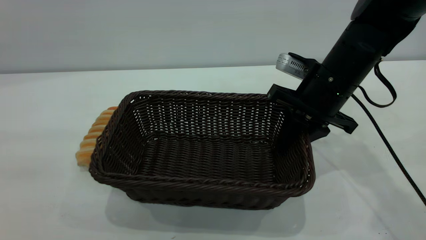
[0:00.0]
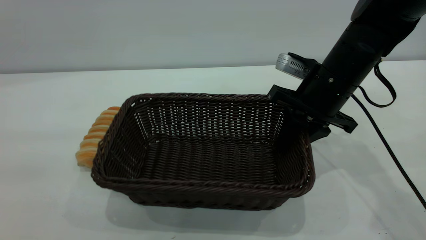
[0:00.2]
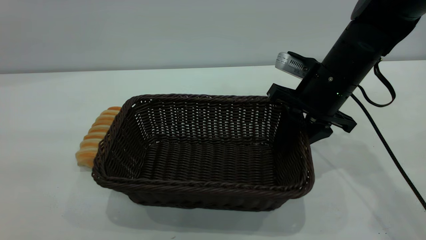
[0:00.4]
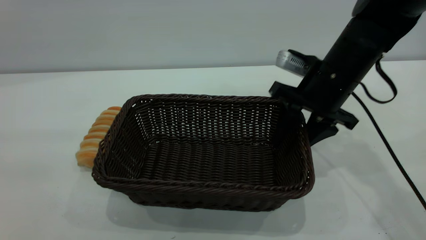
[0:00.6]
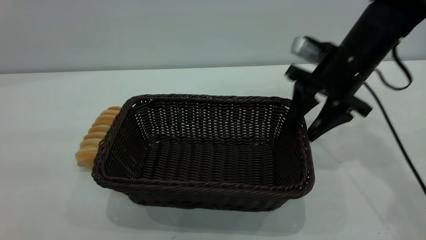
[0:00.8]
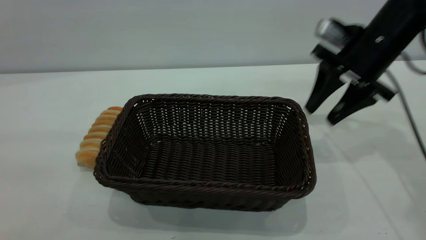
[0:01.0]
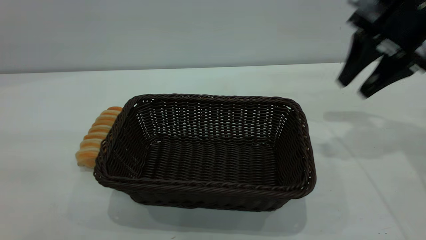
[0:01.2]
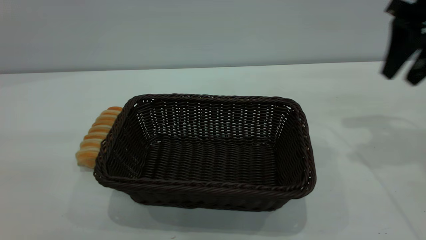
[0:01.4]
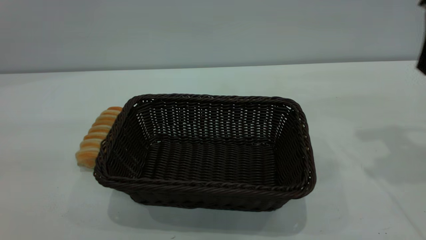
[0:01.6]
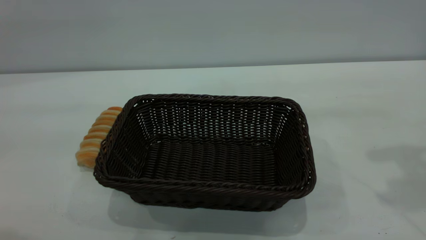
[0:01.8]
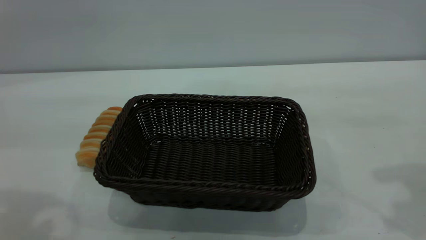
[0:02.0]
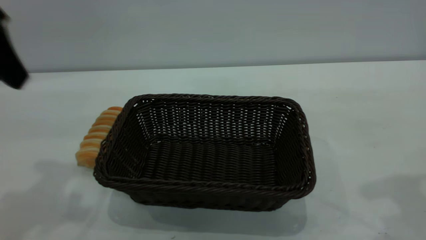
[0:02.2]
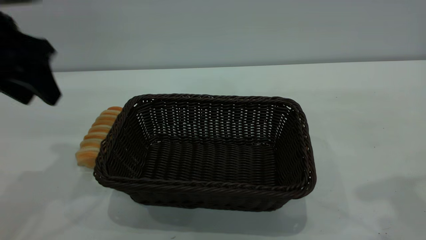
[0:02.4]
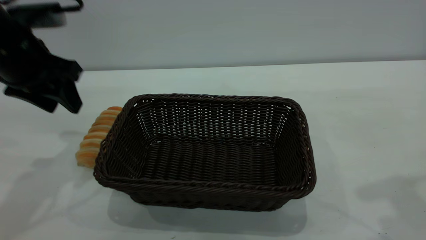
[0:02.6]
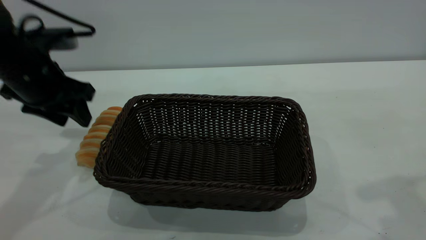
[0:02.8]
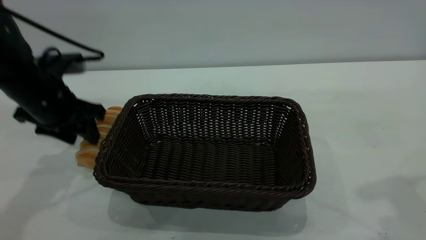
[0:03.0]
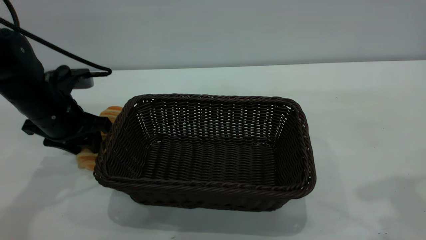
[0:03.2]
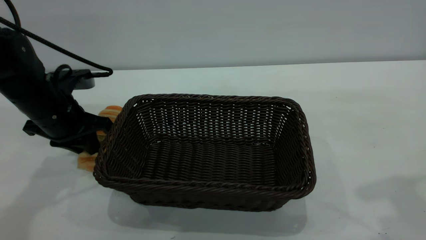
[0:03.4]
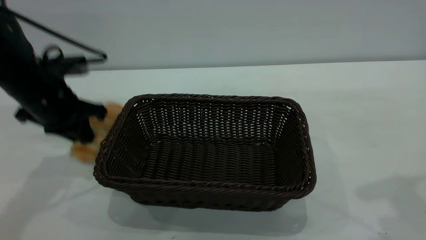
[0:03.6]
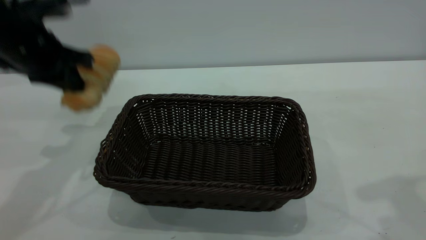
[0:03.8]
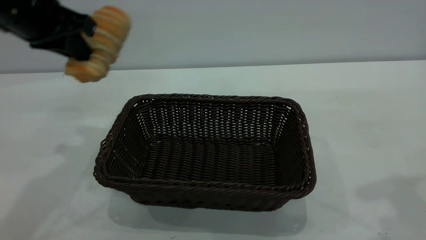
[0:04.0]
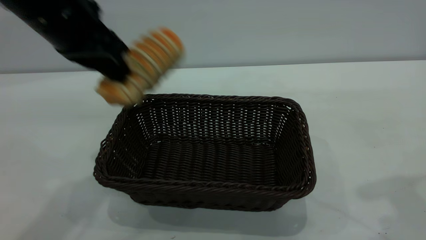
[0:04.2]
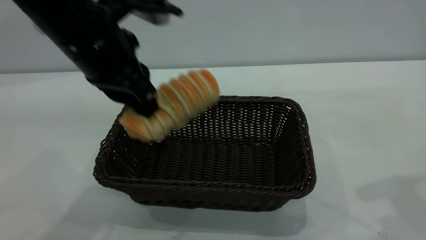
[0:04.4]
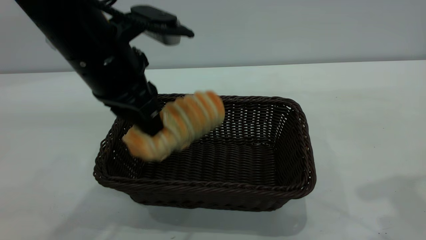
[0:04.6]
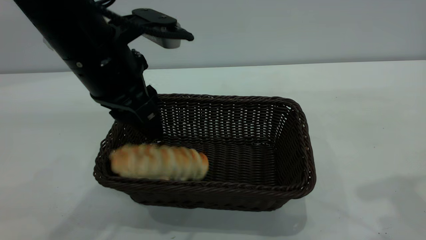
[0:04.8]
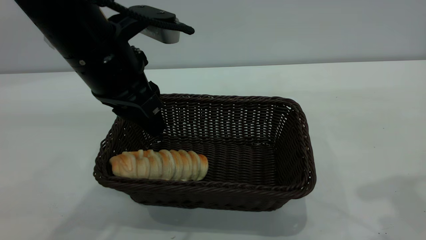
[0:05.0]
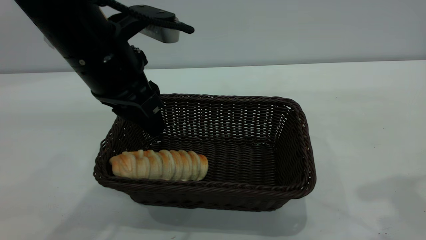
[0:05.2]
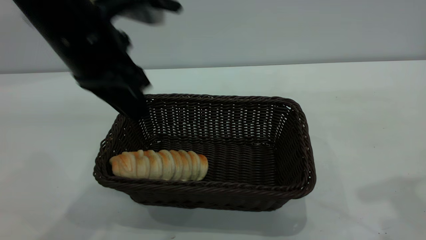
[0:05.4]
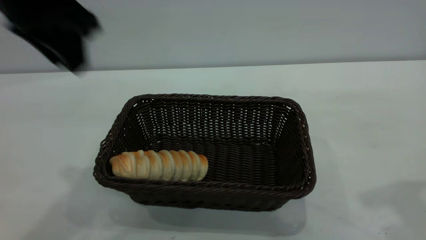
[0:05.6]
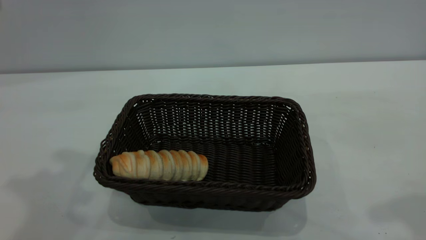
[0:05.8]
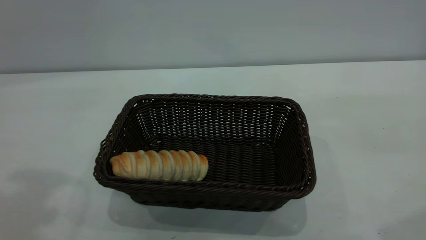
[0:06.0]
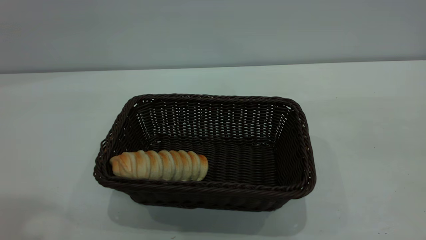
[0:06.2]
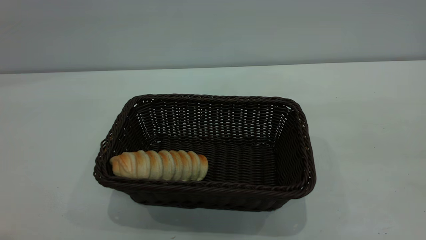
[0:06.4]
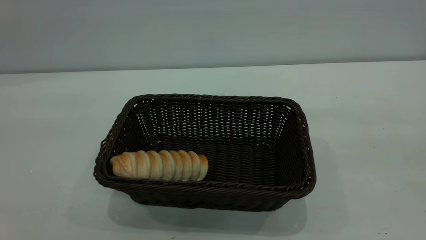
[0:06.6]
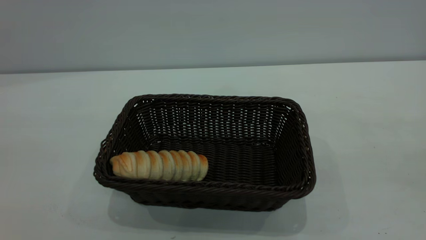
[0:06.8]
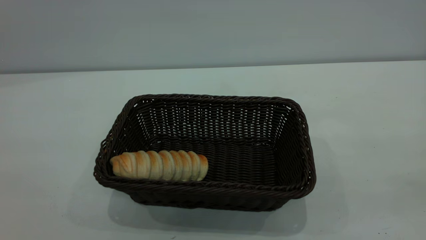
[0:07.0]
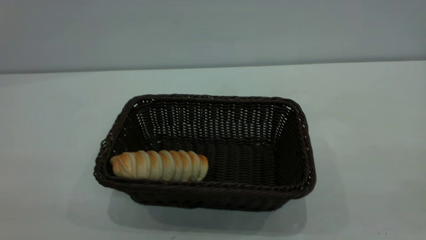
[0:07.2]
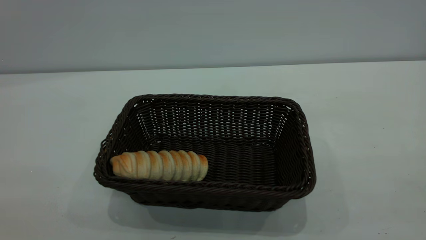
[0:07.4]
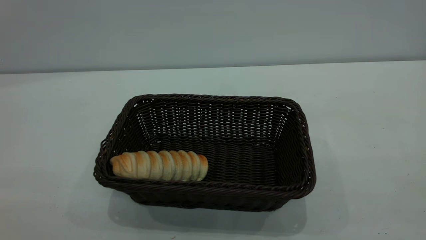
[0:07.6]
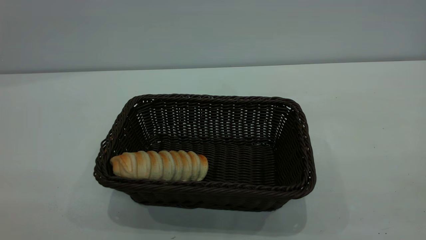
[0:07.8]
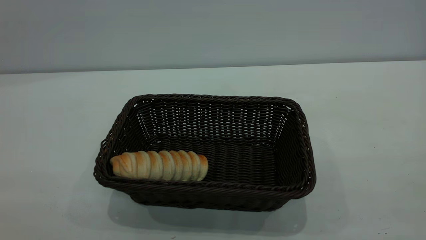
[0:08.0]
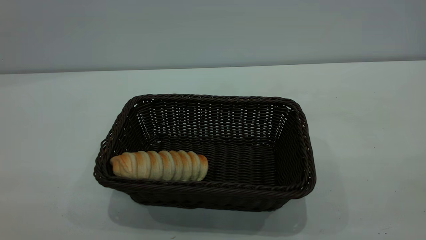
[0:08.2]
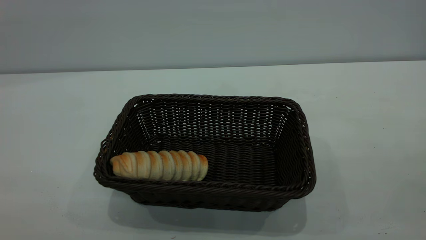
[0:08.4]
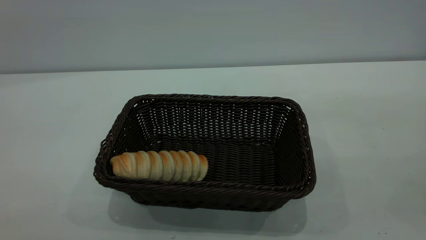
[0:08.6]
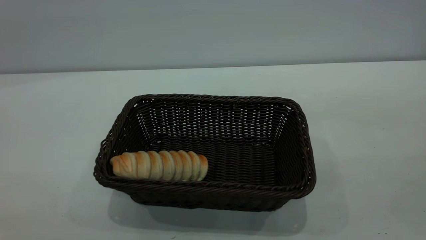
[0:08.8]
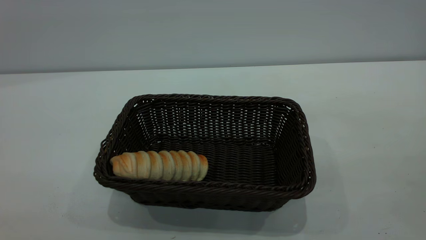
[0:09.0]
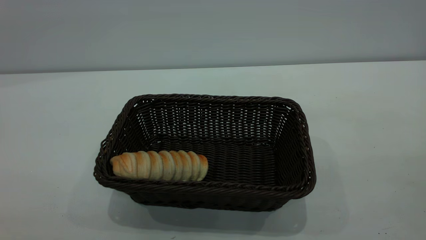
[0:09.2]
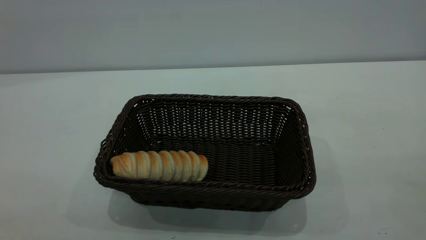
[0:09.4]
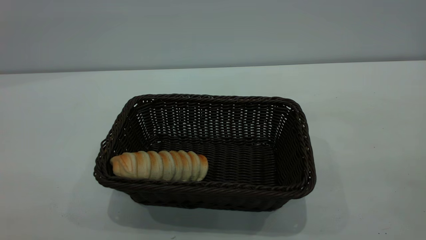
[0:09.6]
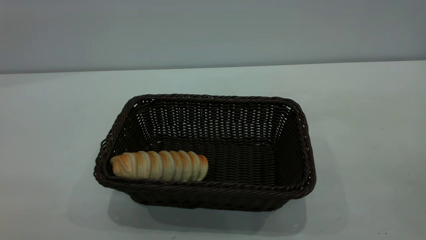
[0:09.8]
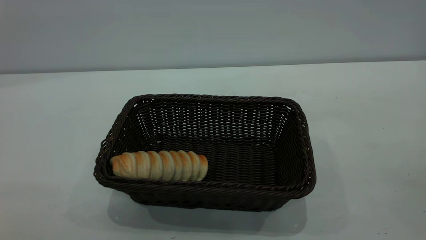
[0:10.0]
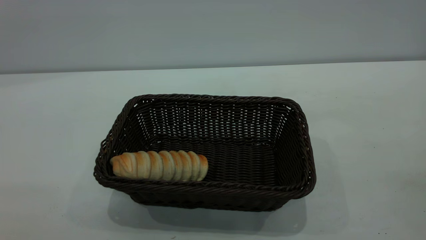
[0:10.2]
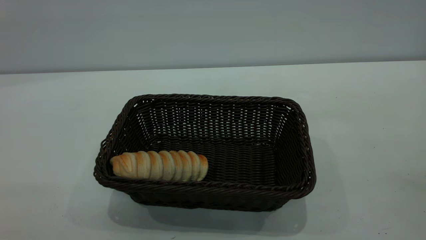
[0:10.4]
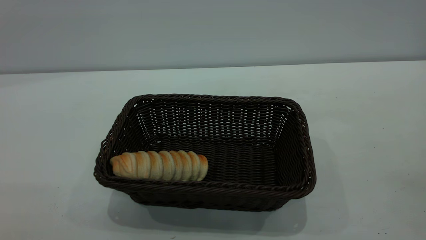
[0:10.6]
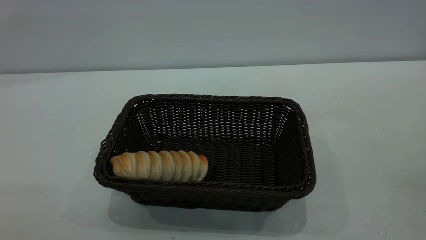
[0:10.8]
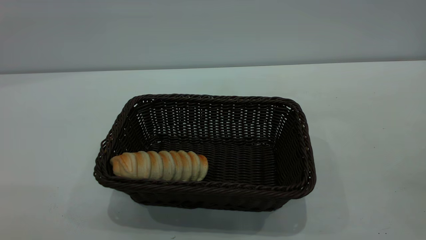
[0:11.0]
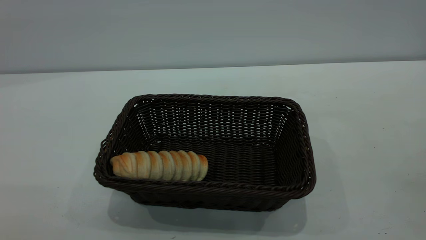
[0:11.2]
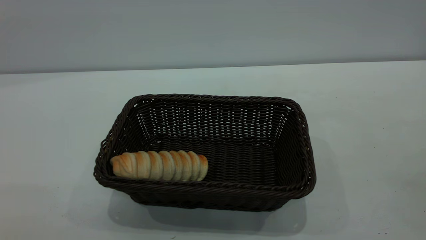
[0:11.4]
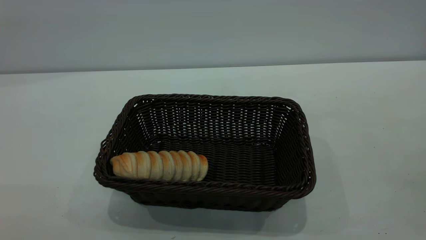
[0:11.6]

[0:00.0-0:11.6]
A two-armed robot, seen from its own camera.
Task of the whole recording: One hand grasps the black basket and places it in the middle of the table, while the other hand picks up the long bread and puts it into the black basket.
Step, 0:03.8 to 0:05.4: place the bread into the basket.
0:00.0 to 0:01.4: The right gripper shifts roughly 20 cm to the right and upward, and opens its fingers.
0:01.4 to 0:02.8: The left gripper travels forward and downward by about 35 cm. Meanwhile the right gripper moves backward and upward, roughly 15 cm.
0:02.8 to 0:04.4: The left gripper is displaced to the right, upward and backward by about 15 cm, and closes up.
0:04.4 to 0:05.8: The right gripper changes place by roughly 5 cm. The left gripper is displaced upward and to the left by some 20 cm, and opens its fingers.
0:10.2 to 0:11.6: Neither gripper changes place.

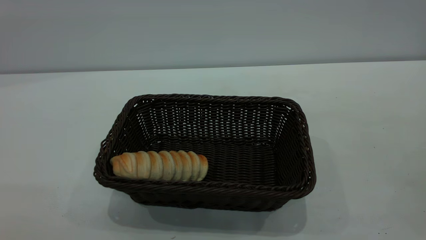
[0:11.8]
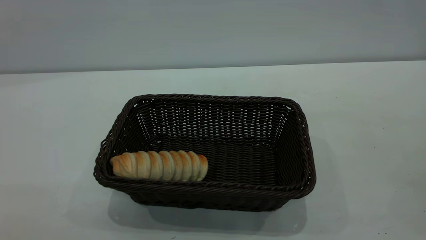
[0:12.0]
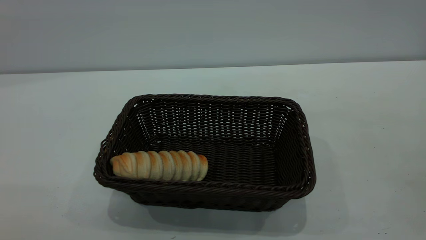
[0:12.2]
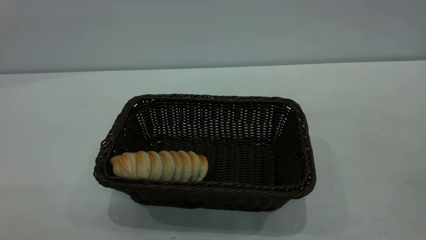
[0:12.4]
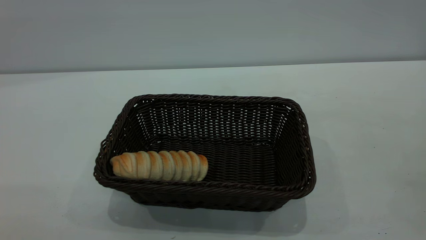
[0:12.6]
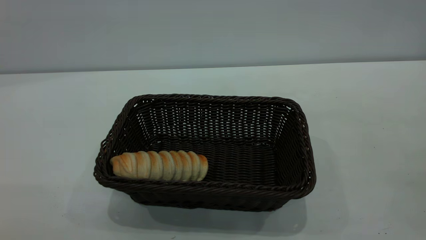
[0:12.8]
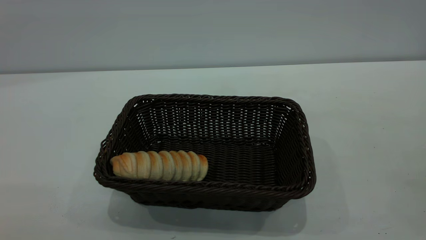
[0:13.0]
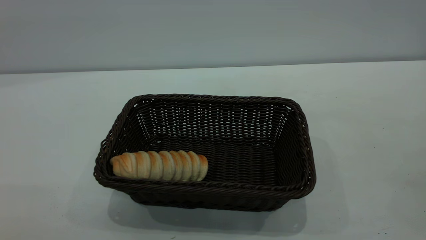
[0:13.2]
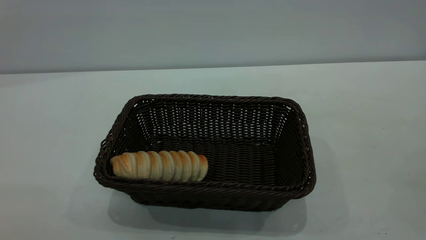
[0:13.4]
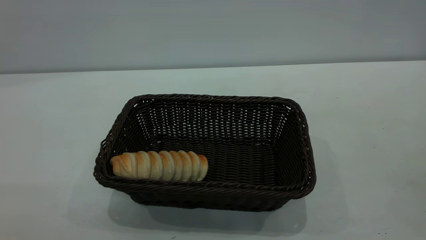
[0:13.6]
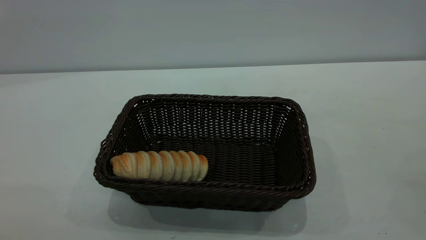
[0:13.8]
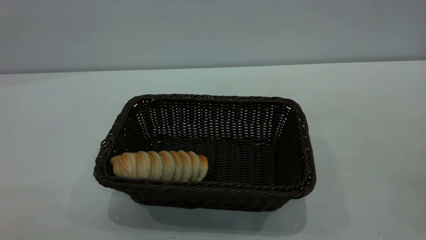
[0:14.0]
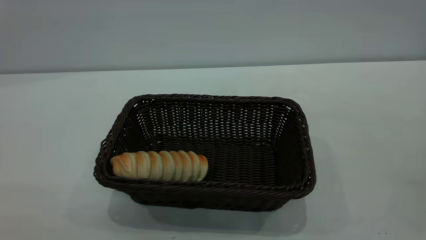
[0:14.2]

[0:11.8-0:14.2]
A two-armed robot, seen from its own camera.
Task of the whole recording: One hand grasps the black basket and places it in the middle of the table, while the other hand picks up the long bread and puts it into the black basket.
0:11.8 to 0:14.2: The two grippers keep their place.

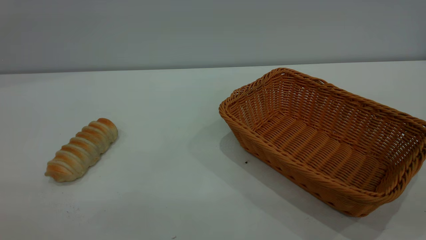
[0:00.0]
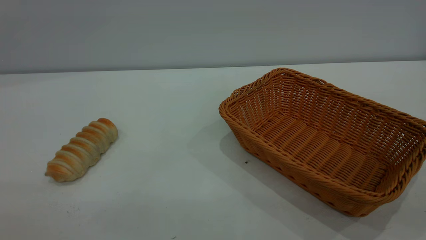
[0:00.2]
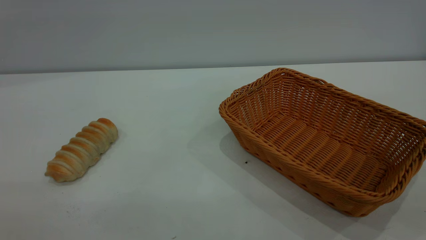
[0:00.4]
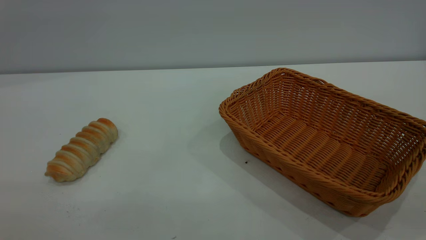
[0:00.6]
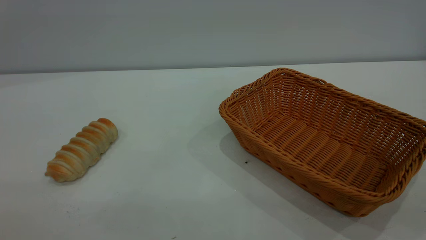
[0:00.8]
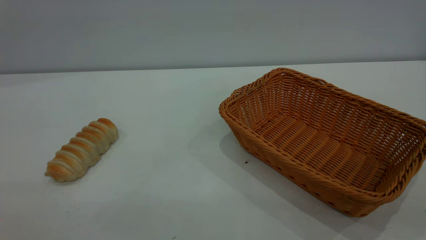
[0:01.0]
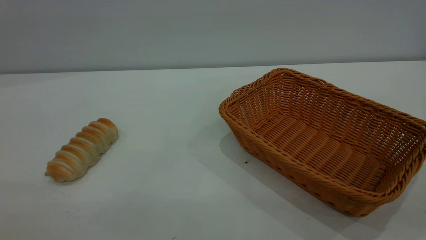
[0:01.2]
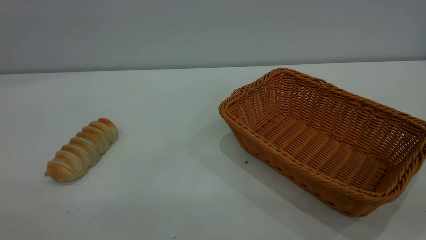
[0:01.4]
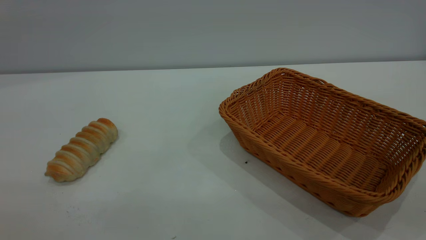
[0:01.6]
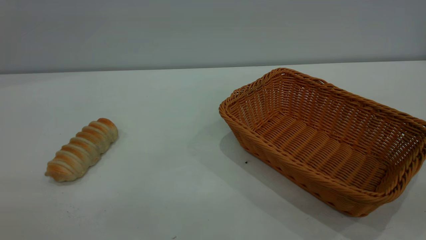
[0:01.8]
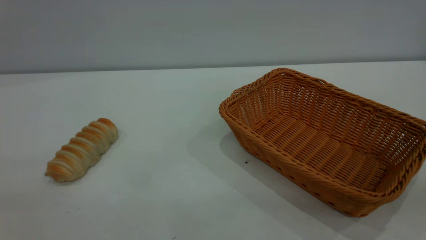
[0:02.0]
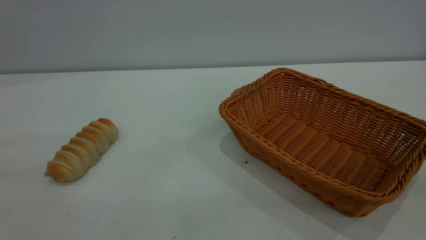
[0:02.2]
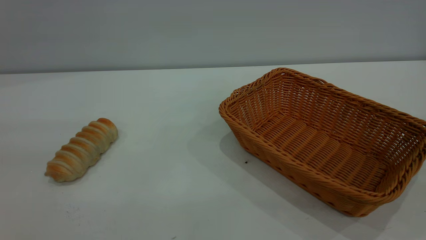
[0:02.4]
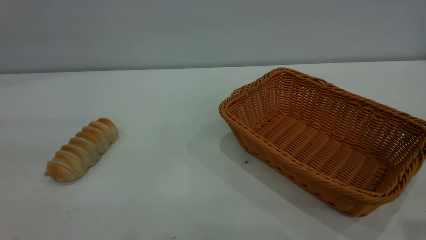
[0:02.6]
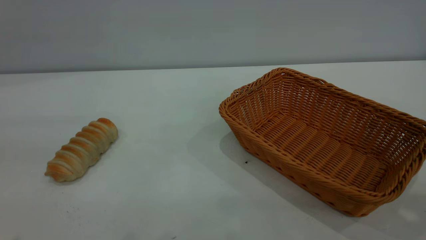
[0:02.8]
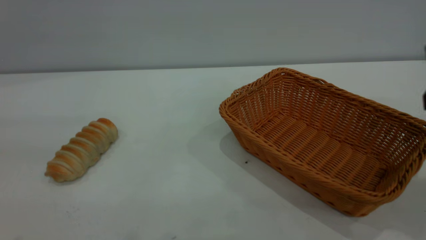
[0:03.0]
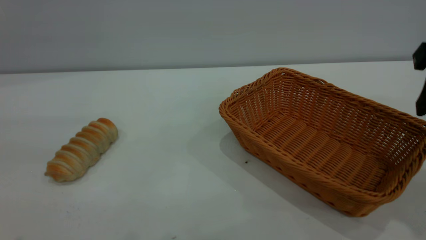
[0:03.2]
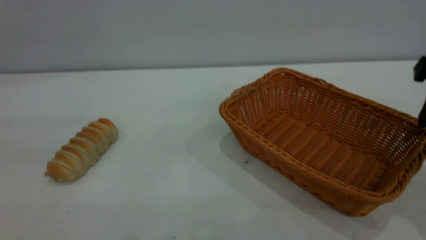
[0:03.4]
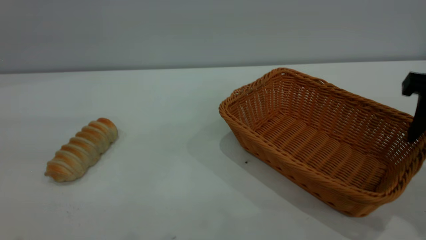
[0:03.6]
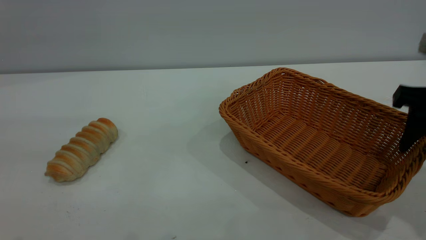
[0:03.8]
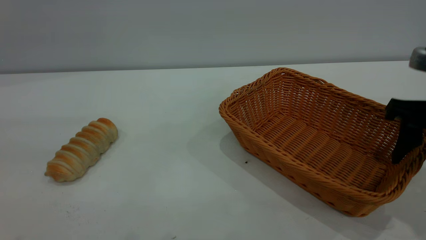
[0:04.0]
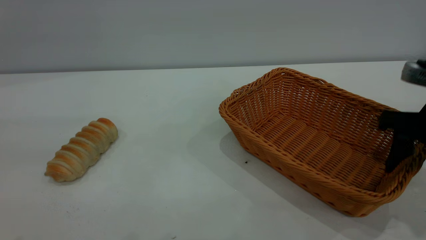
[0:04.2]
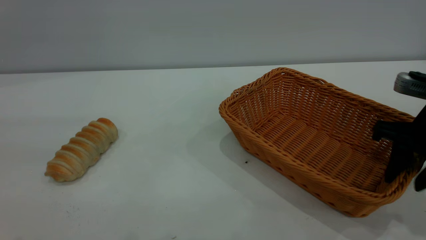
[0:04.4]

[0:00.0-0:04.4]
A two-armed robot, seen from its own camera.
Task of the whole recording: One hand grasps the yellow basket and places it in the middle of the table, while the other hand picks up the long bread and puts it into the yellow basket.
0:00.0 to 0:01.4: The two grippers keep their place.
0:03.0 to 0:04.4: The right gripper heads downward, covering approximately 10 cm, and closes.
